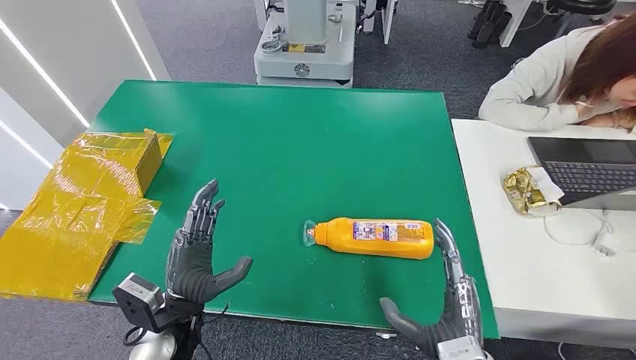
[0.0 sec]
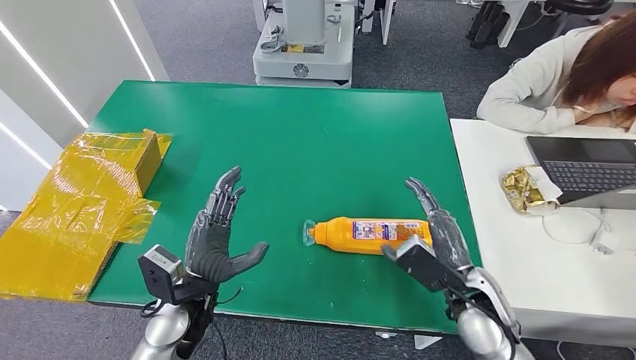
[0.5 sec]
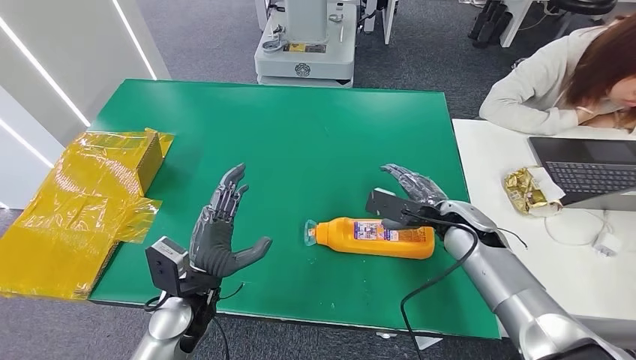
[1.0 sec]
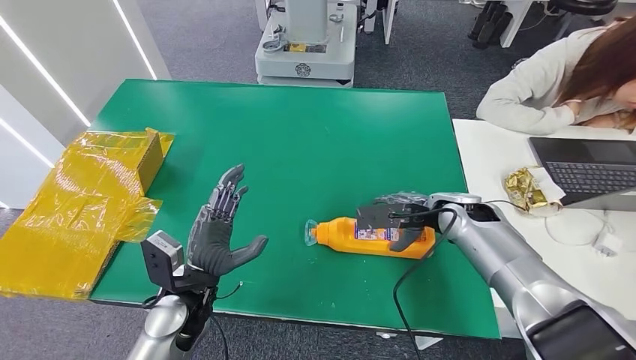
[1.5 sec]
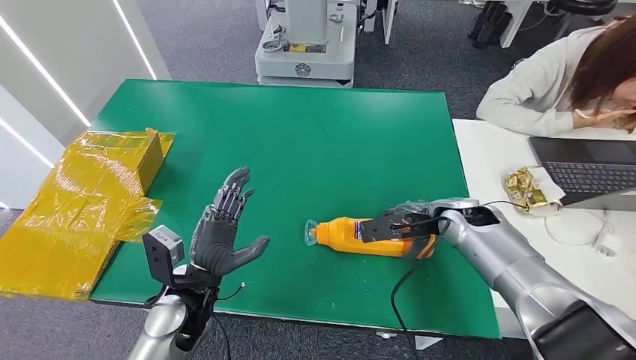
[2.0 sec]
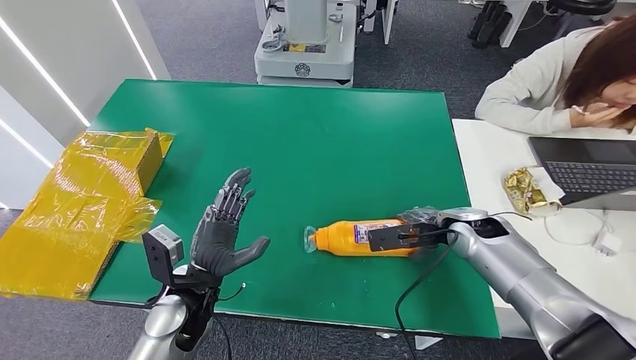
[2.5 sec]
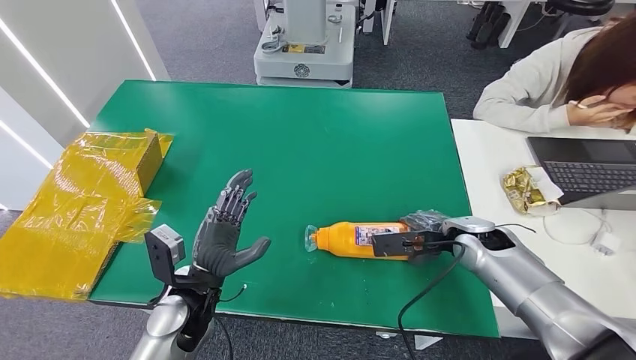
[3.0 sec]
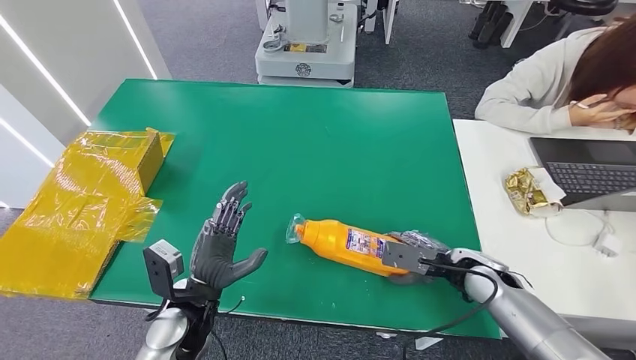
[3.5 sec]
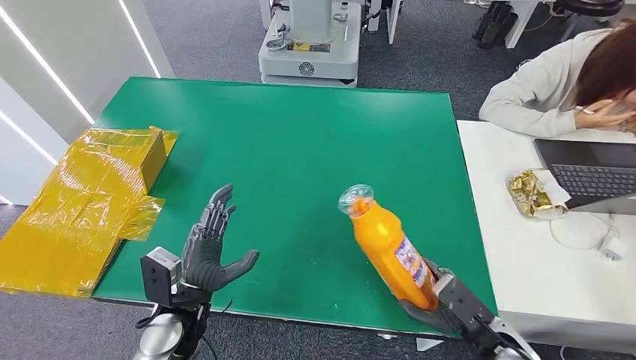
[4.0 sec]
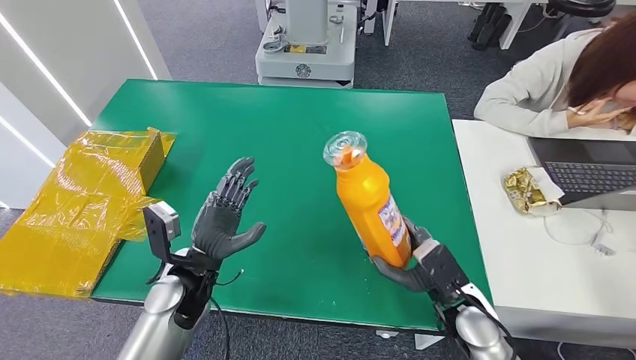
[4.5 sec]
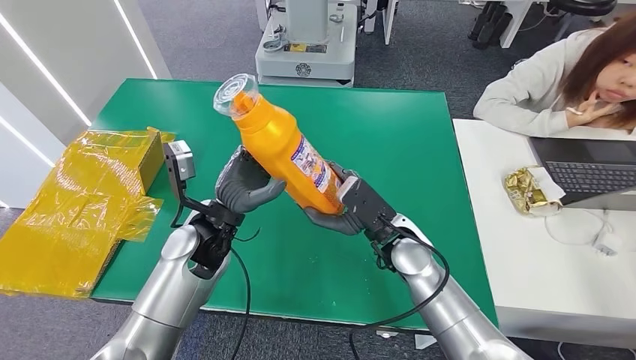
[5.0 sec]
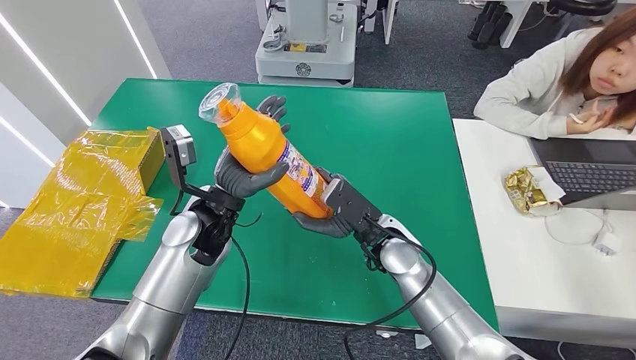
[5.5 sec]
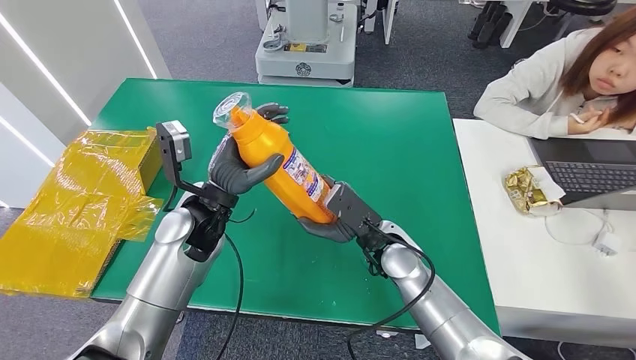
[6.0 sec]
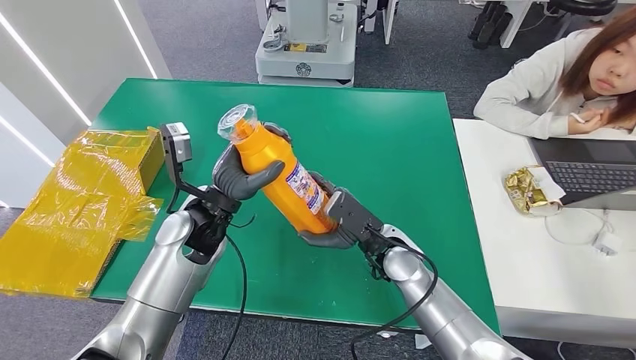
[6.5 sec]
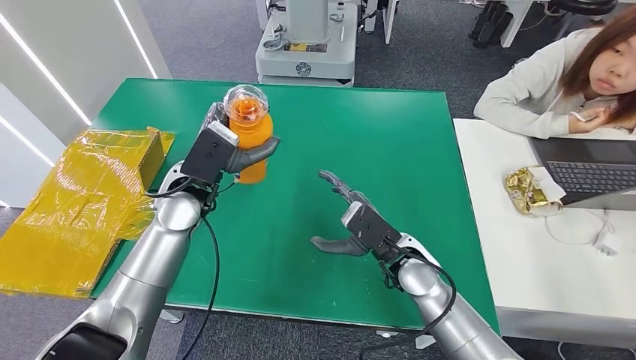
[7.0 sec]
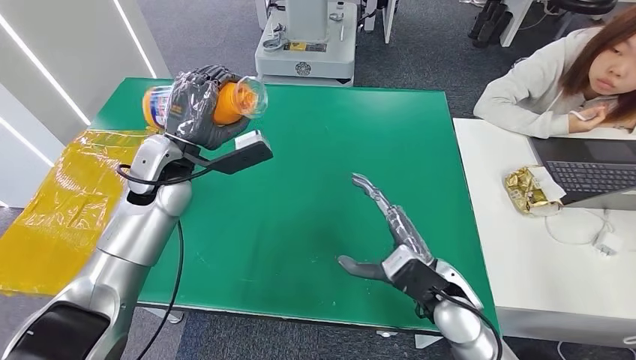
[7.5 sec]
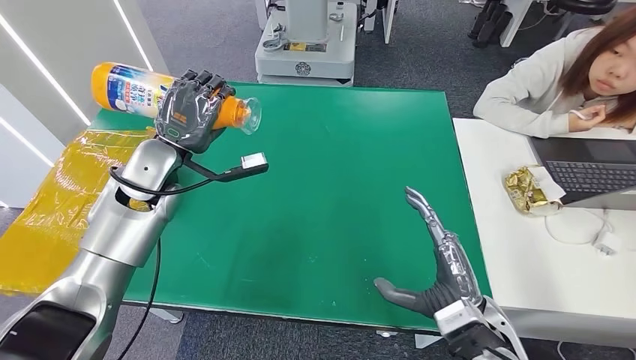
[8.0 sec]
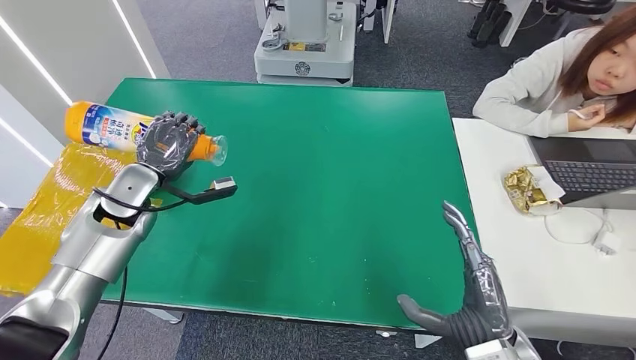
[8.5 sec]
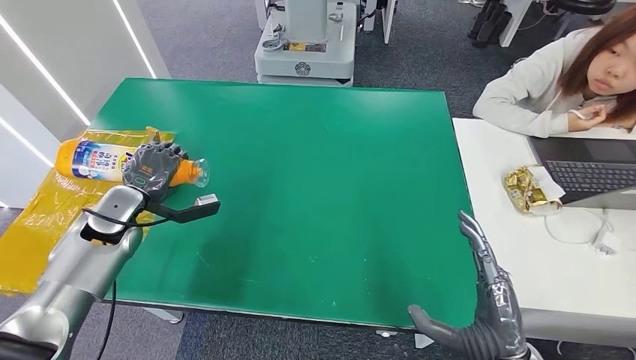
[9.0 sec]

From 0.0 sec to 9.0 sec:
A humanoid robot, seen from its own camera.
Step, from 0.0 sec to 4.0 sec: Pick up the bottle from the table.
From 2.0 sec to 4.5 sec: The right hand travels backward and downward by approximately 15 cm.

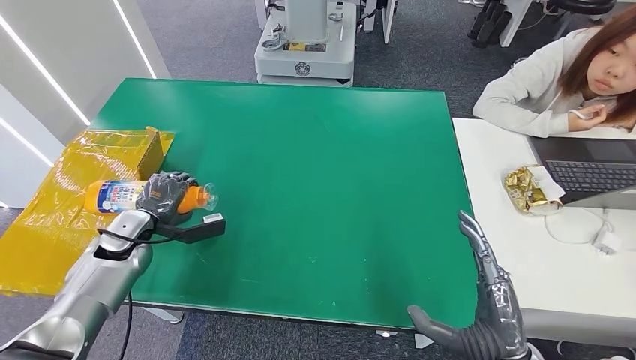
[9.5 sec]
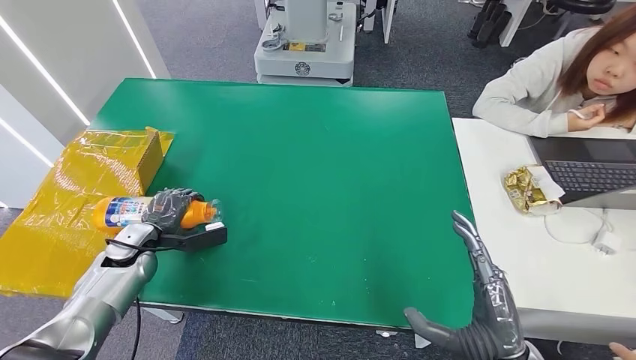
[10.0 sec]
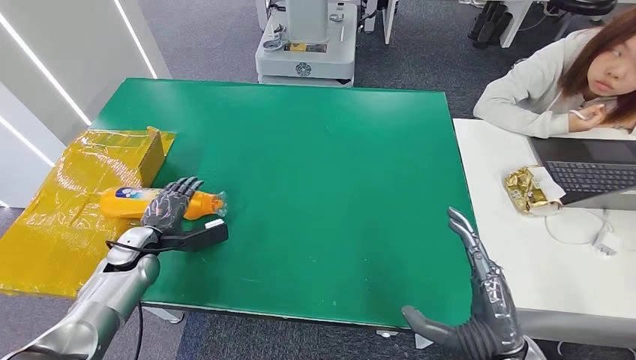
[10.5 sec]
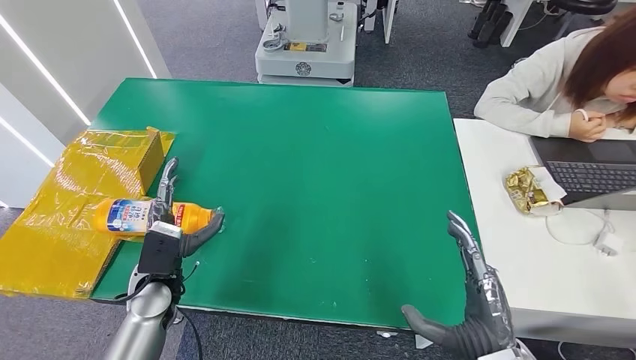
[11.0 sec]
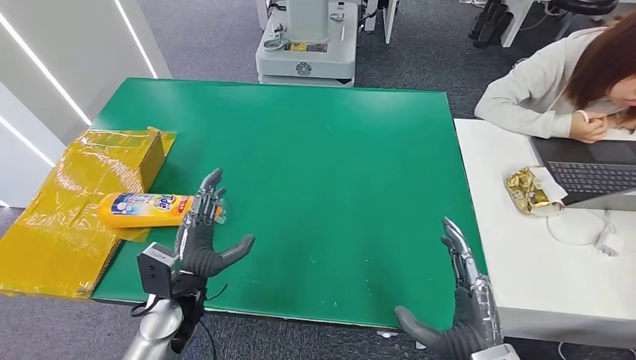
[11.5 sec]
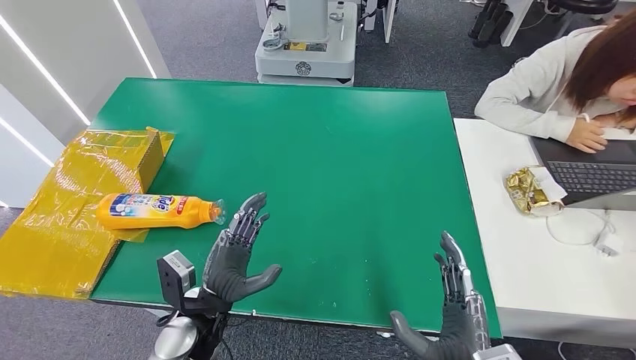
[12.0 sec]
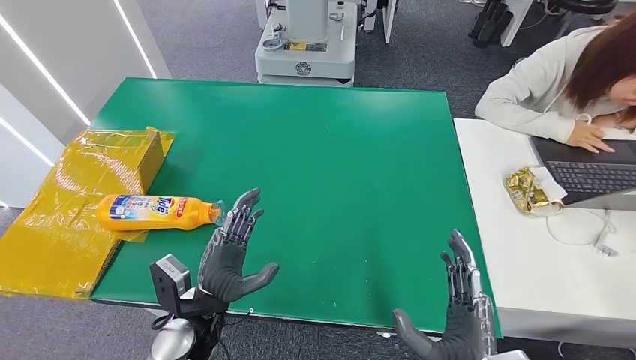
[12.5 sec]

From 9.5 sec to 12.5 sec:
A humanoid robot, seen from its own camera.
Step, from 9.5 sec to 12.5 sec: Turn the bottle to the front side.
From 9.5 sec to 11.0 sec: The left hand moves to the right and backward, about 15 cm.
From 11.0 sec to 12.5 sec: The right hand travels to the left by some 5 cm. The left hand is displaced to the right and backward by roughly 10 cm.

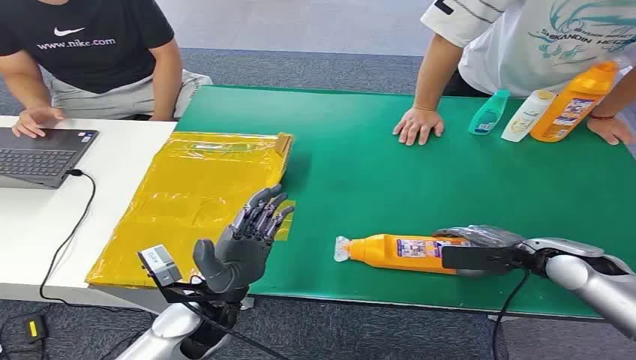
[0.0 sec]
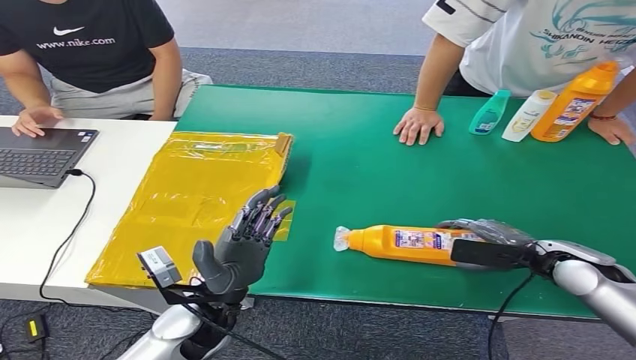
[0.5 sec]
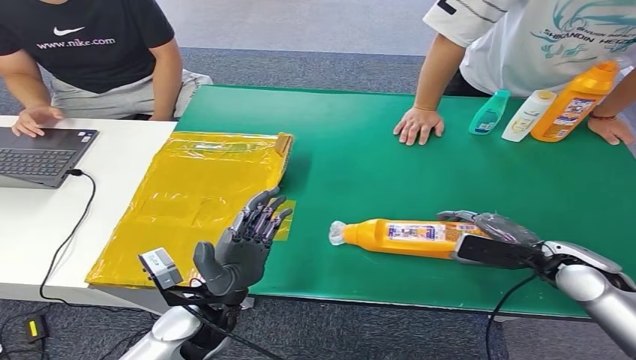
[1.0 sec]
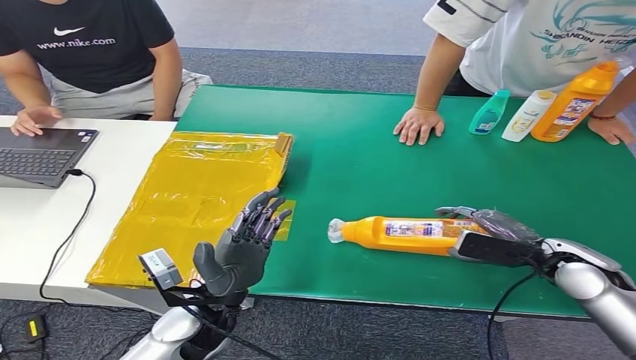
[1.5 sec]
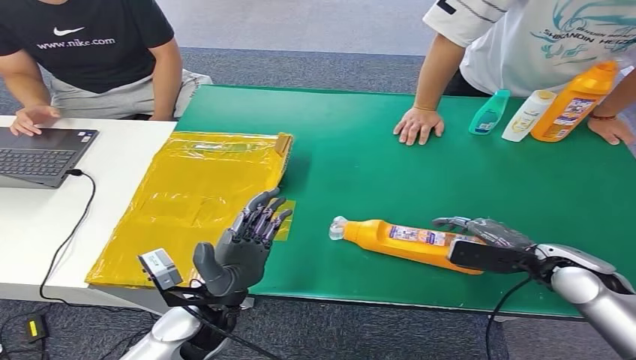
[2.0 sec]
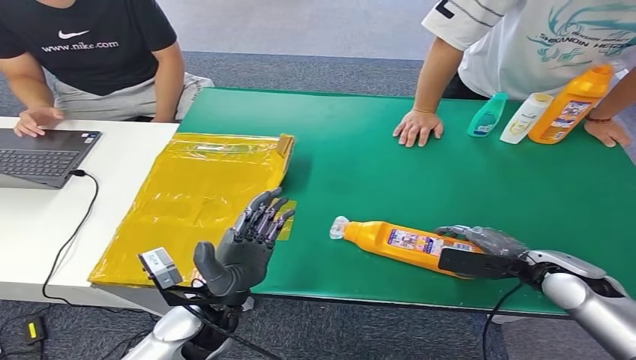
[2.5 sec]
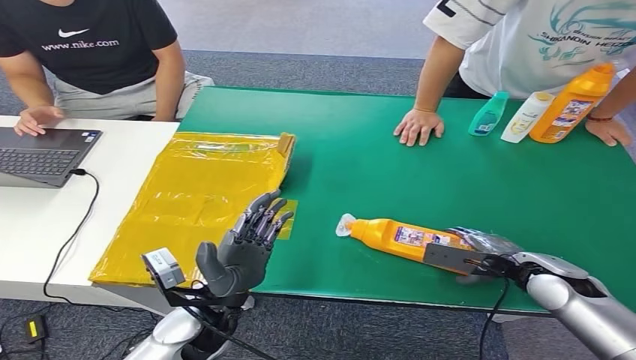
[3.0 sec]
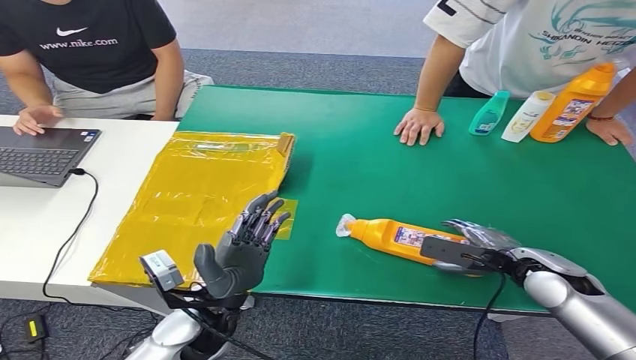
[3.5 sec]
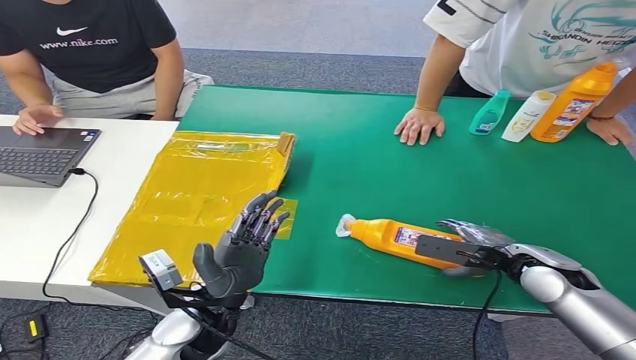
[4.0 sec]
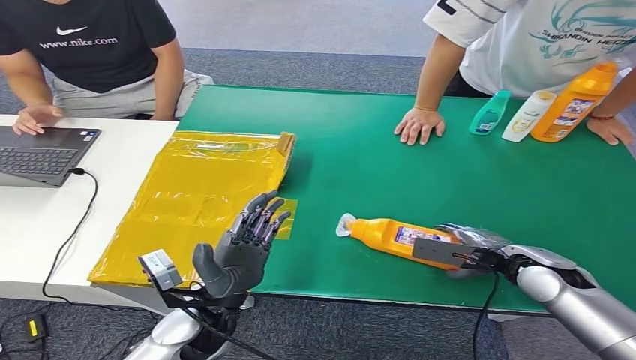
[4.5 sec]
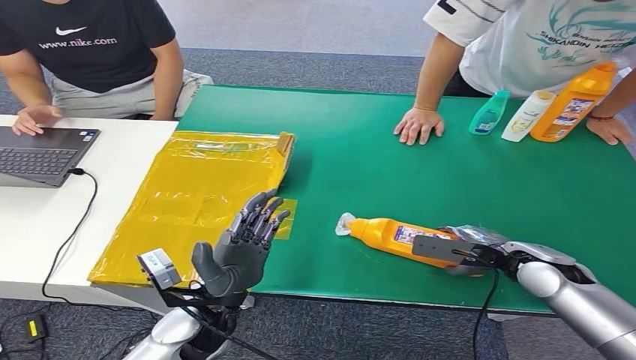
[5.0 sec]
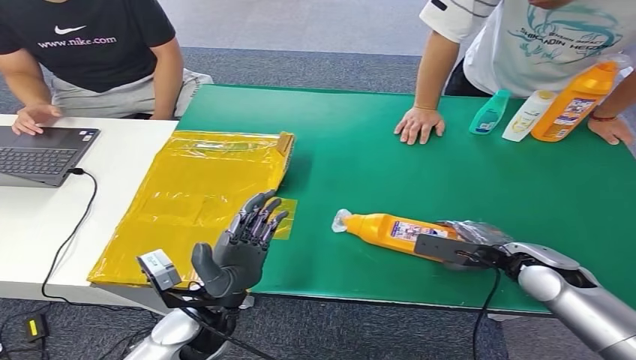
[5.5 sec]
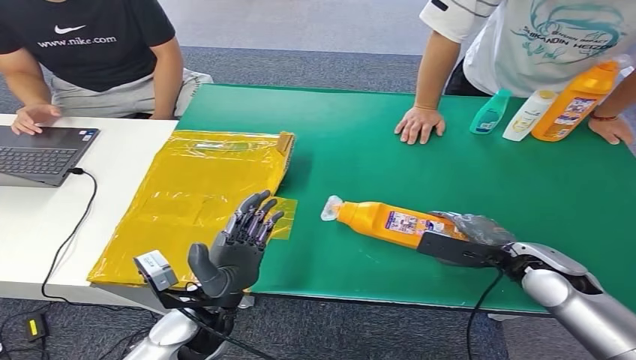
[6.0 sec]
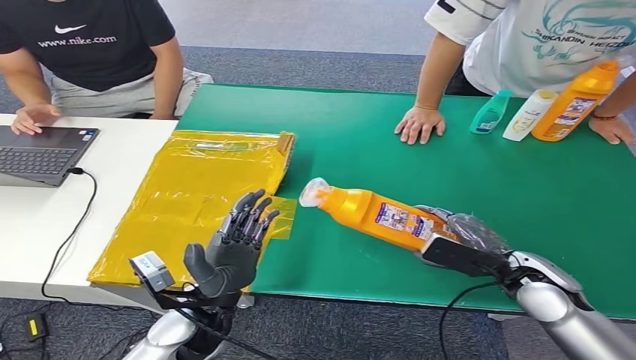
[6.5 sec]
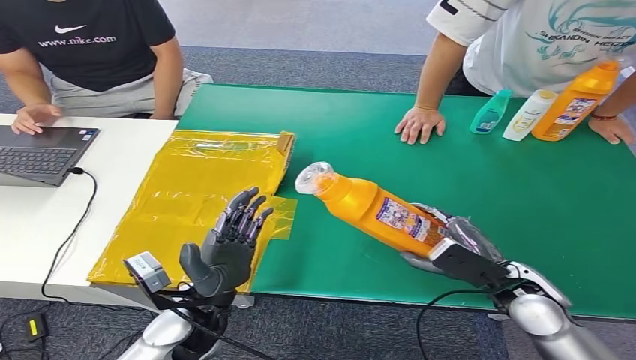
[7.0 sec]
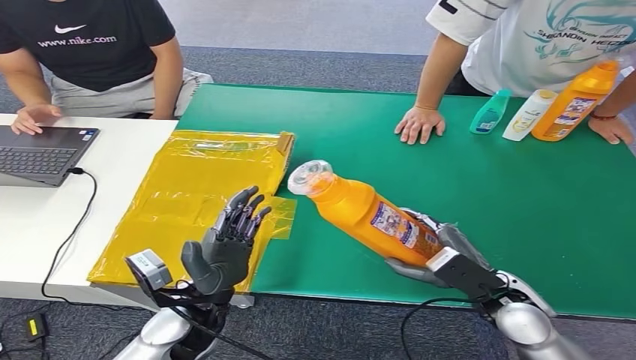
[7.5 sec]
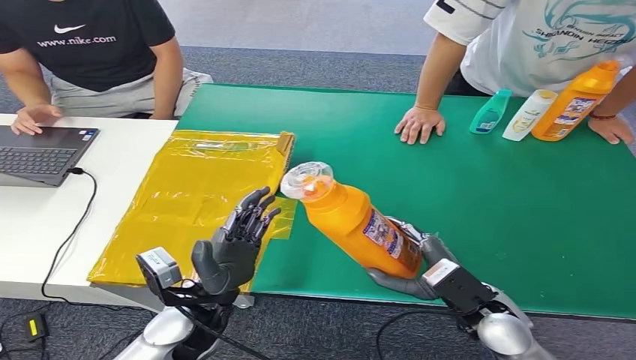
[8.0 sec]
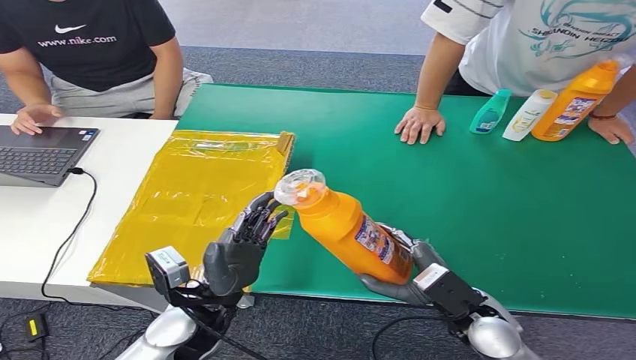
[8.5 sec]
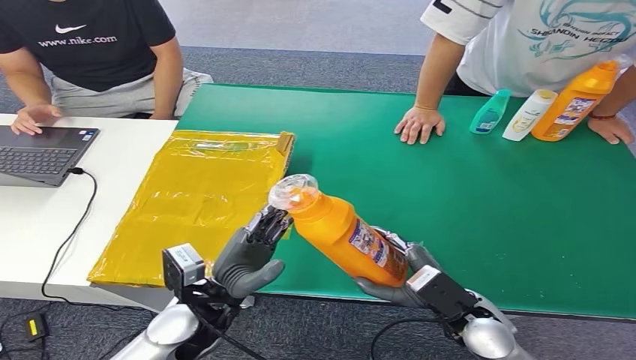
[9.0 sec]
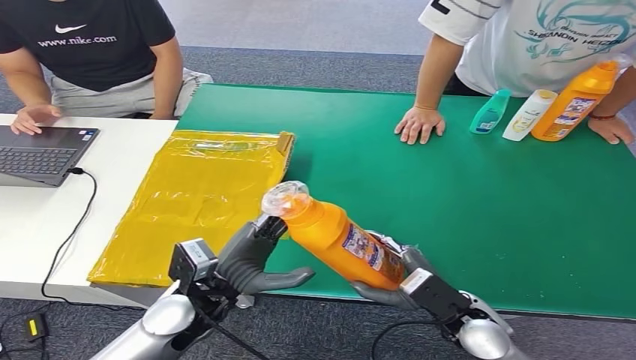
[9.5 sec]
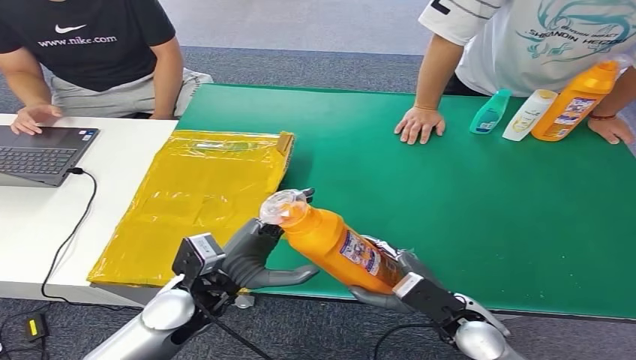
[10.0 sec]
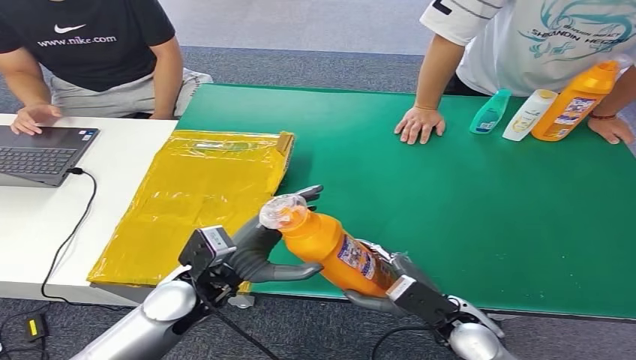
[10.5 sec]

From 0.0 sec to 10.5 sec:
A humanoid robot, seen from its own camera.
Step, from 0.0 sec to 7.0 sec: Pick up the bottle from the table.
From 6.5 sec to 8.5 sec: The right hand moves to the left and backward, about 10 cm.
From 8.5 sec to 10.5 sec: The hands stay close to where they were, moving slightly.
